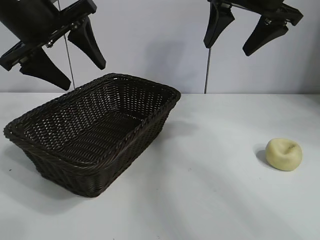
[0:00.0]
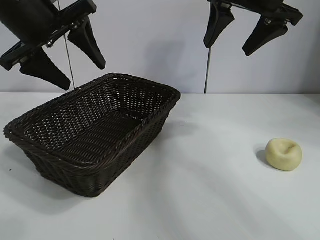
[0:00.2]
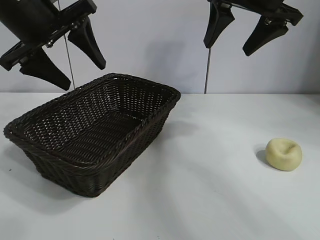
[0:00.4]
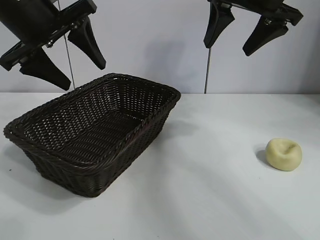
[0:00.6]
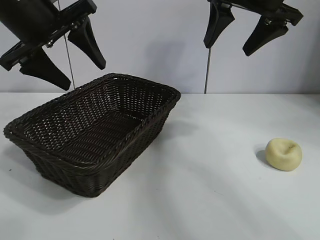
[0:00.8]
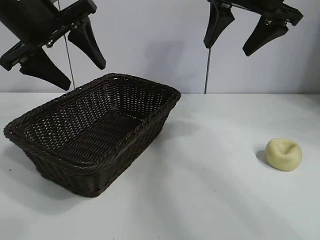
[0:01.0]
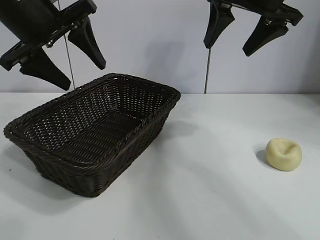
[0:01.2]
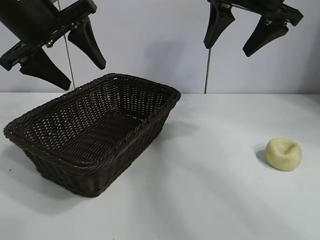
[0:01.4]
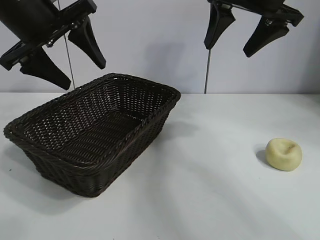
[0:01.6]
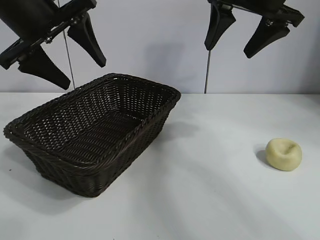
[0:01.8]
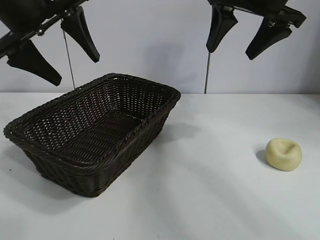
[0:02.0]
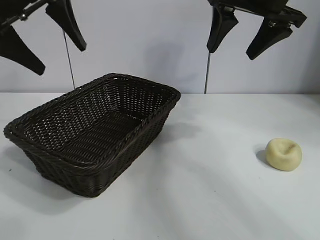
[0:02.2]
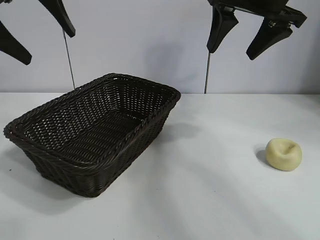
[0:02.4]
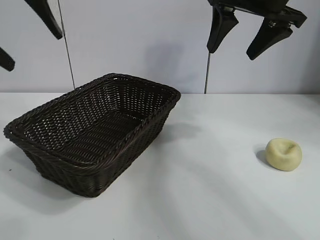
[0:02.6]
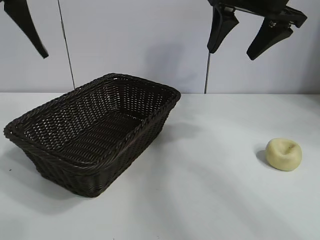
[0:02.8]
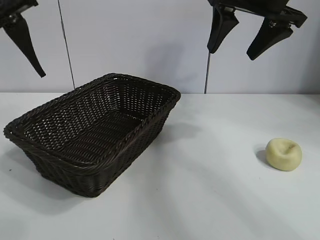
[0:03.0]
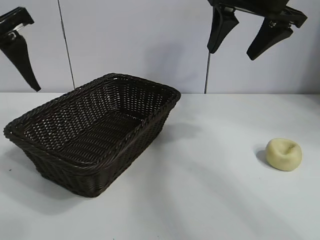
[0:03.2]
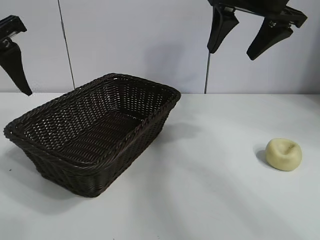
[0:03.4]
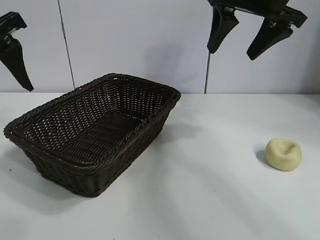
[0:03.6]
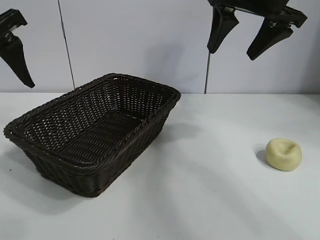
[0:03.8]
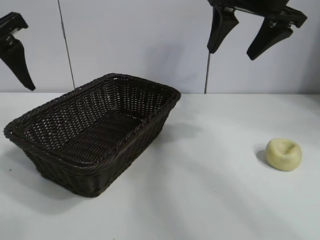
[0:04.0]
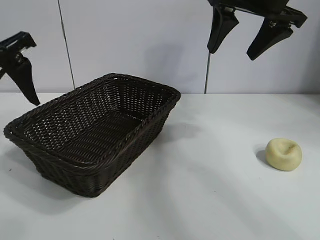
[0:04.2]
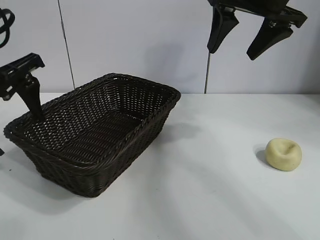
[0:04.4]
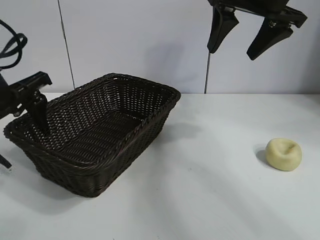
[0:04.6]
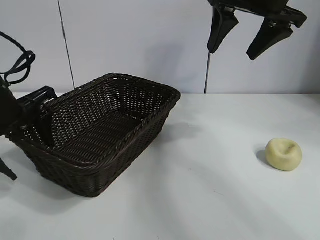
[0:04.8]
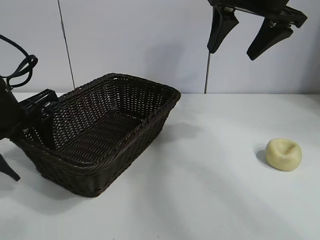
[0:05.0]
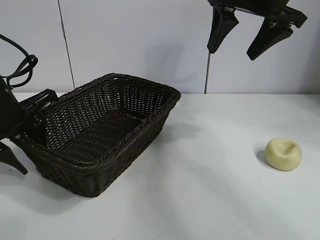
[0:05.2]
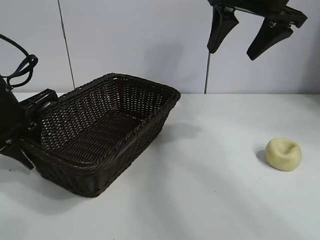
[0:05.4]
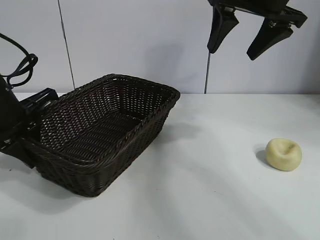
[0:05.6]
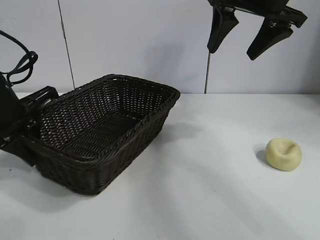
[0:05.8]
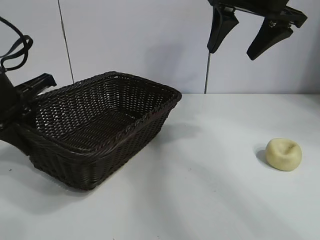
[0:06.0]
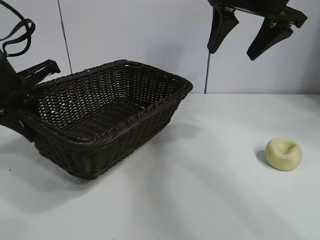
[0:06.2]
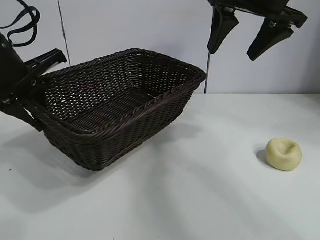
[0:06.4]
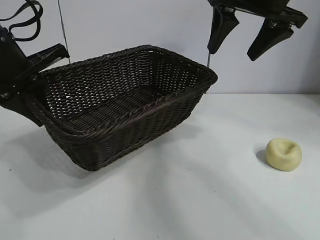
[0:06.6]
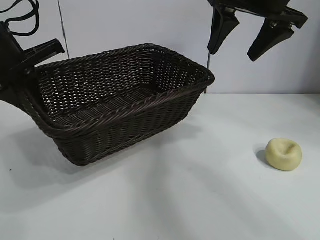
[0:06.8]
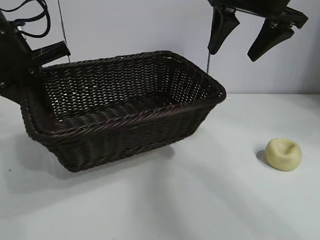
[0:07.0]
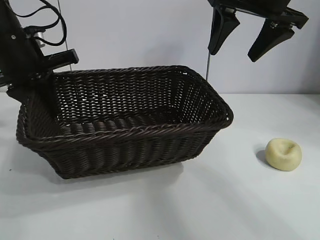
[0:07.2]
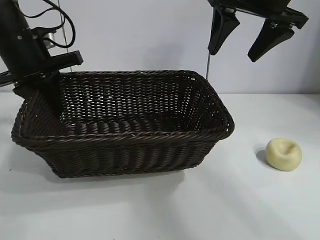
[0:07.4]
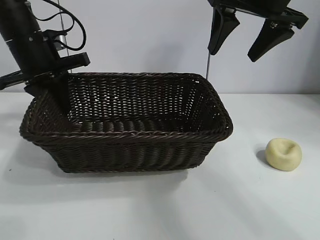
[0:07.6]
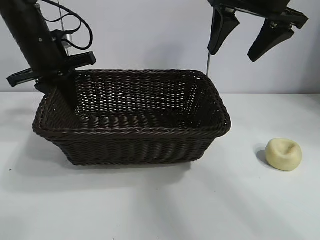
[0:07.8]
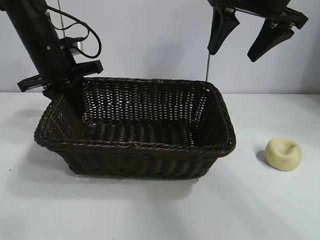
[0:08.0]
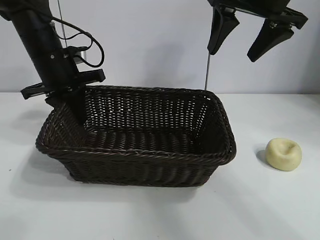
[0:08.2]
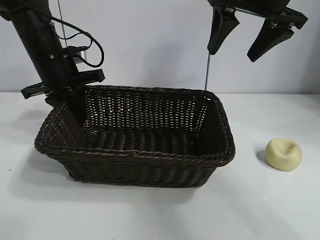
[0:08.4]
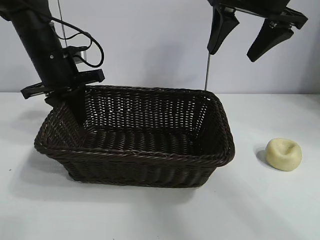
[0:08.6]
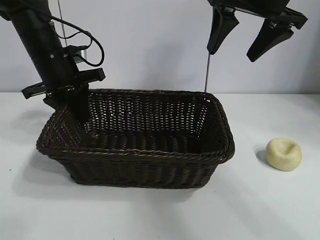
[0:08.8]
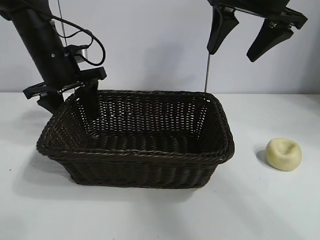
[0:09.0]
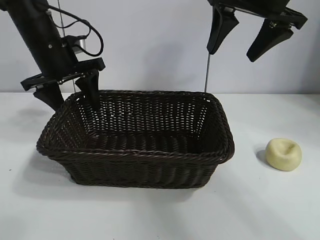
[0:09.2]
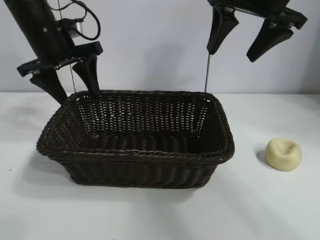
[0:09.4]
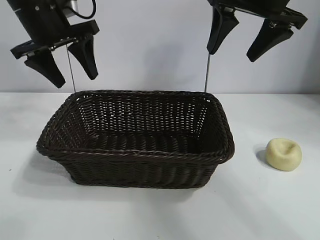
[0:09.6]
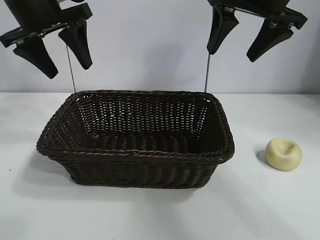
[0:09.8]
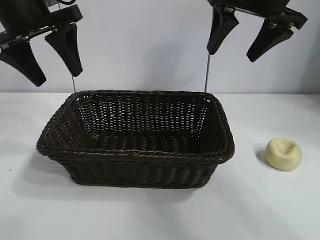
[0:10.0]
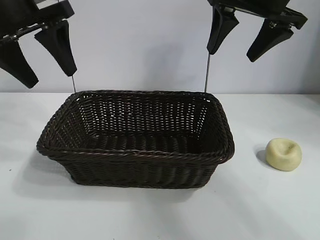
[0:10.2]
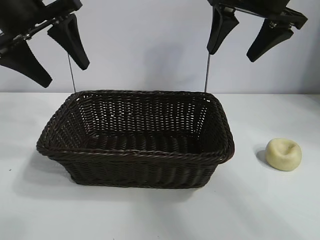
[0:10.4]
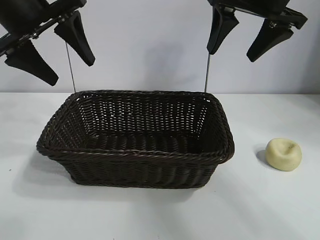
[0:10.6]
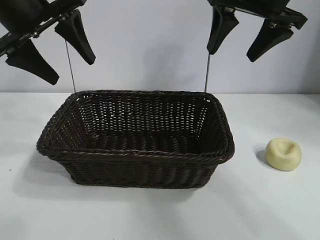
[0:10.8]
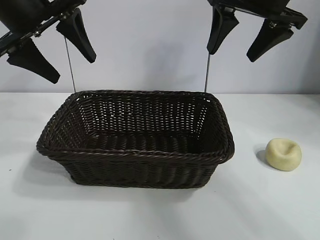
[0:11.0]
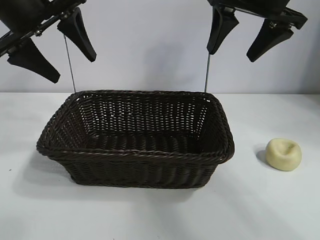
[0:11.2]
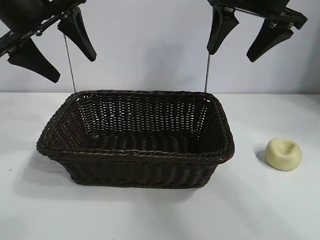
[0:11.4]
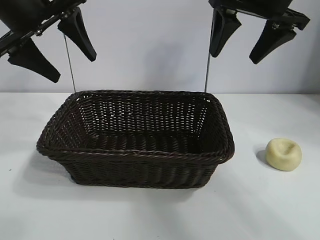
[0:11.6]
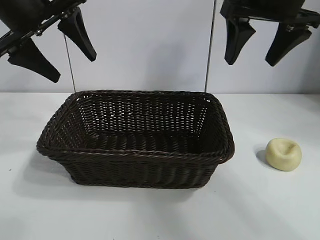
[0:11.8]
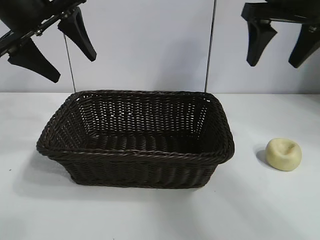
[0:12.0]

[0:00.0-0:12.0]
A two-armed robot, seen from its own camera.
Task of the whole recording: pick up the egg yolk pastry and put it into the basket.
Step, 0:01.6 to 0:05.4: Grasp the basket with left gripper.
Step, 0:05.6 to 0:09.0: Place the basket in the center of view with left gripper.

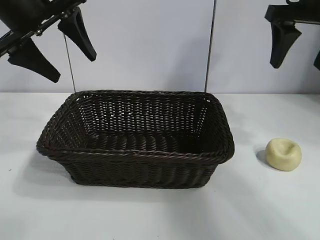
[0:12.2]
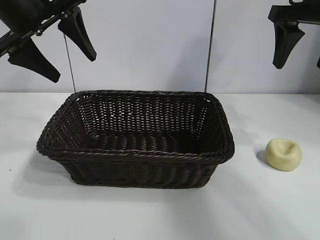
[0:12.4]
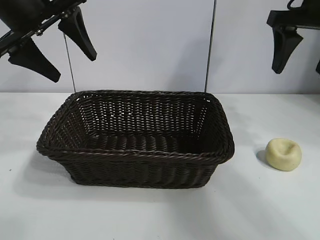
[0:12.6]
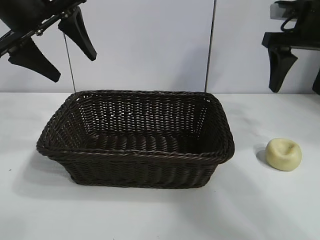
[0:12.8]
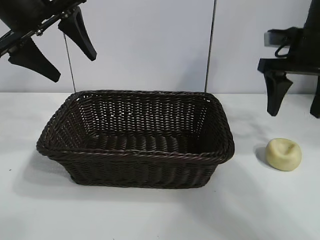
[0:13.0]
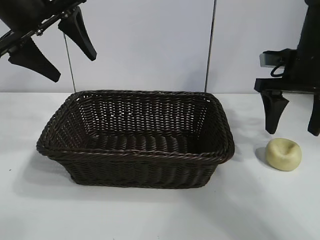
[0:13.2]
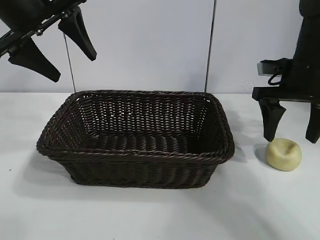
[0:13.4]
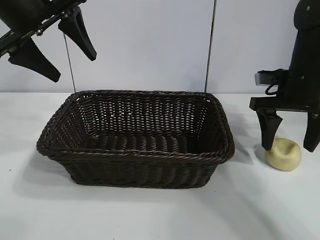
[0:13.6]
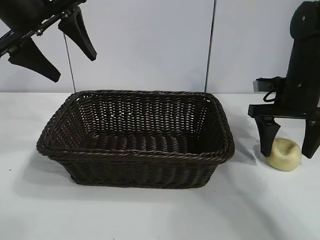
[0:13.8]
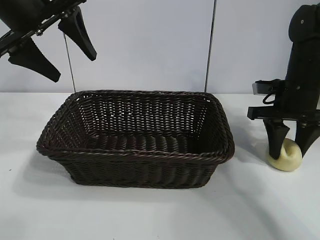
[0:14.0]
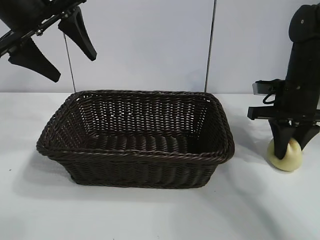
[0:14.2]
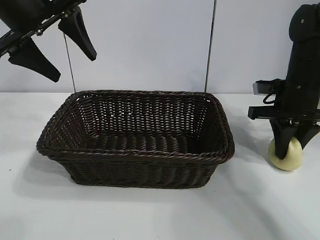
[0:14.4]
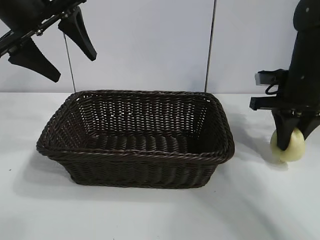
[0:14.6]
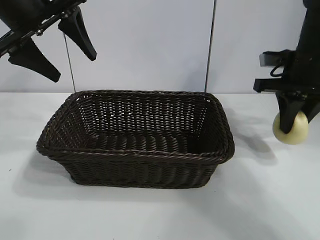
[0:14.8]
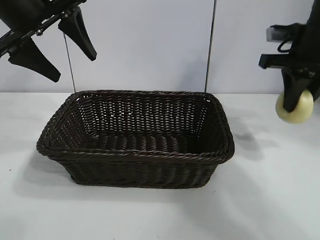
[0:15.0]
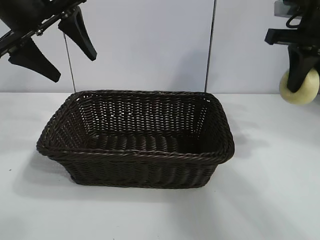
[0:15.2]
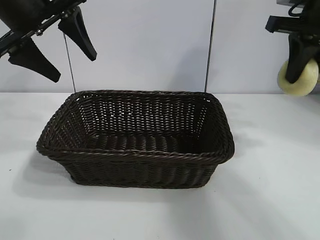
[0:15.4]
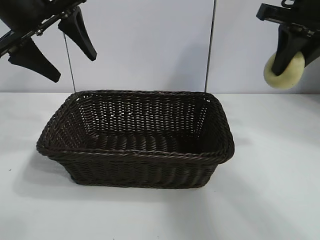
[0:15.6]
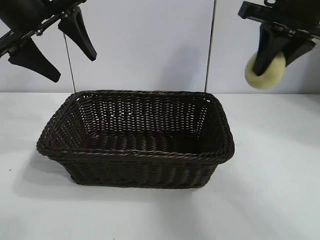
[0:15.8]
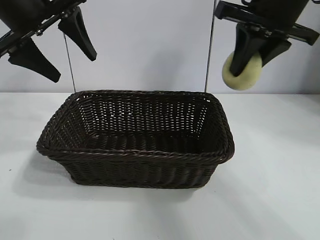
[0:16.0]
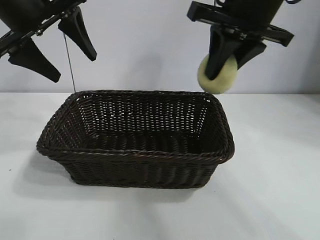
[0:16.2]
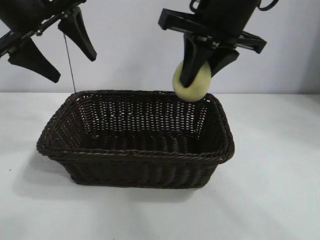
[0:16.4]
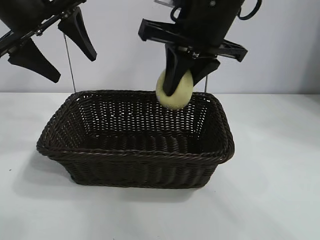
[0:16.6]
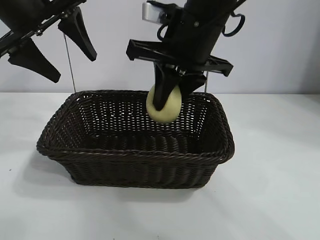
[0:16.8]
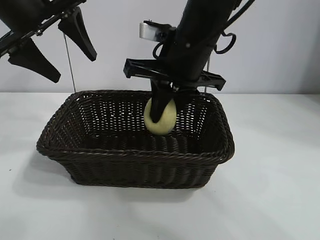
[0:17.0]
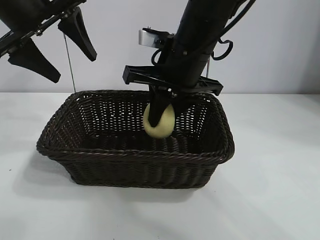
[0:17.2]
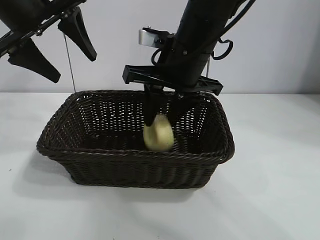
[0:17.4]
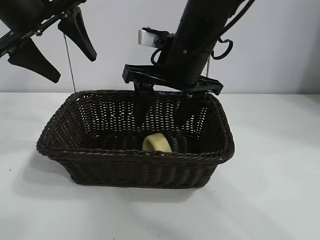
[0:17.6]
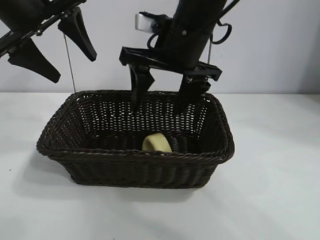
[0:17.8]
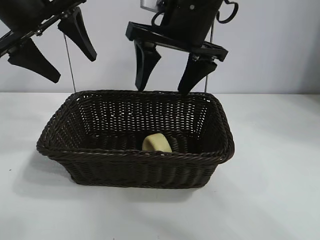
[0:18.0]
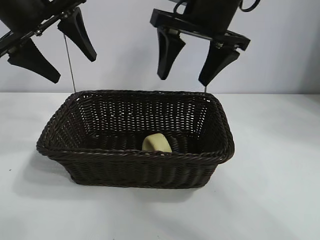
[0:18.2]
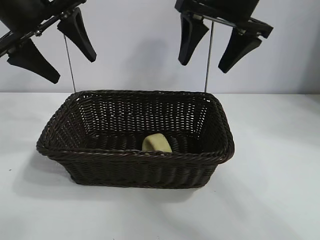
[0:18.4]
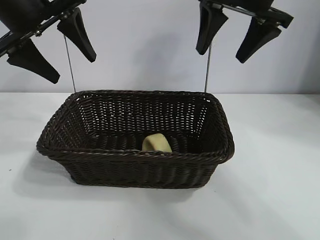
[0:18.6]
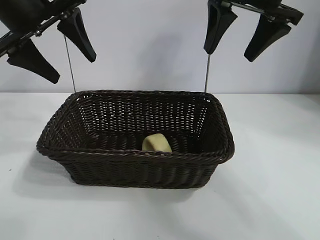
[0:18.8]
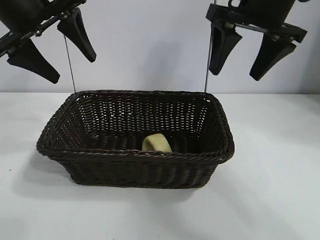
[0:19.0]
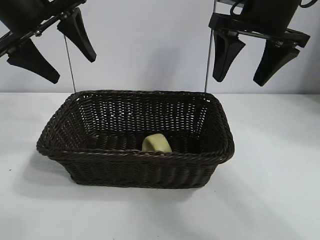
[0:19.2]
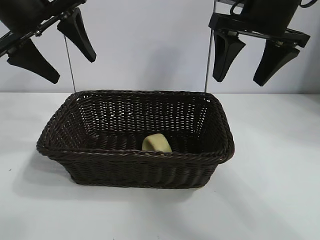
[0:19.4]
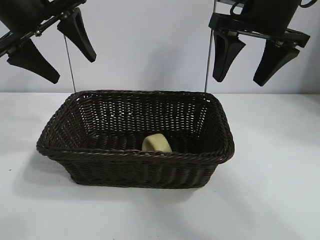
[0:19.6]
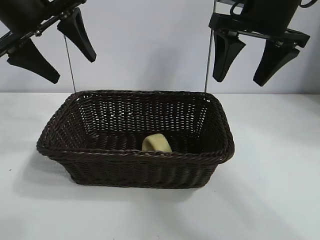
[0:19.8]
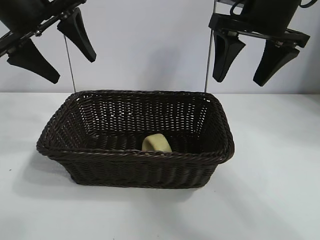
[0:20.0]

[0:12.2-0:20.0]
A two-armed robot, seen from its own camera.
Task of the whole recording: pick up the egg yolk pastry and put it into the basket.
Step, 0:12.2 to 0:14.2: Grasp egg yolk pastry with right gripper.
Step, 0:14.4 to 0:17.4: Place the egg yolk pastry in the basket with right gripper.
